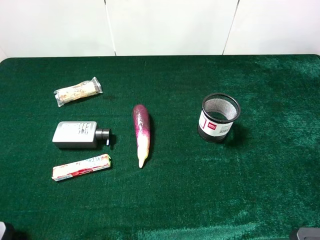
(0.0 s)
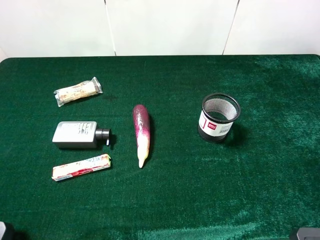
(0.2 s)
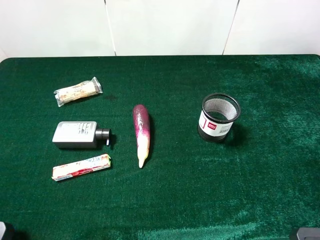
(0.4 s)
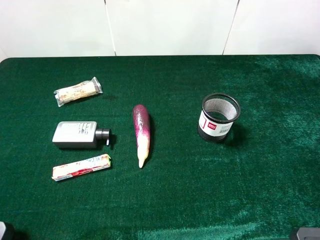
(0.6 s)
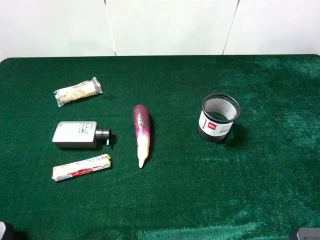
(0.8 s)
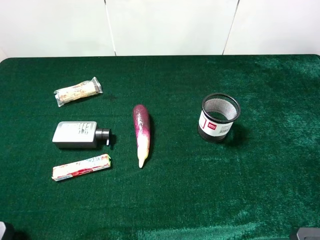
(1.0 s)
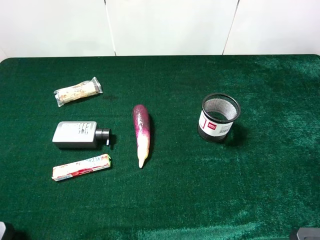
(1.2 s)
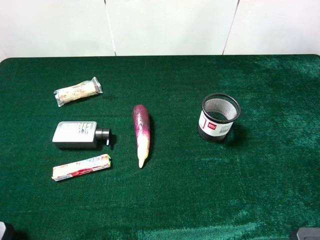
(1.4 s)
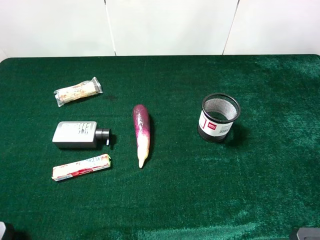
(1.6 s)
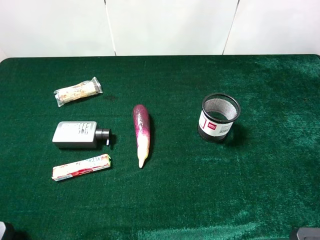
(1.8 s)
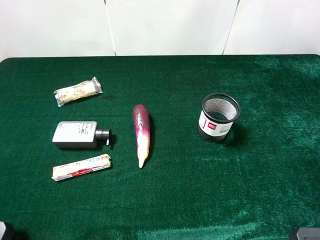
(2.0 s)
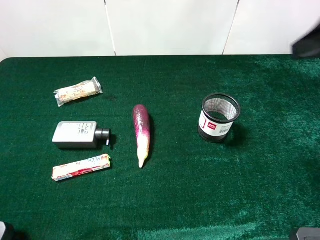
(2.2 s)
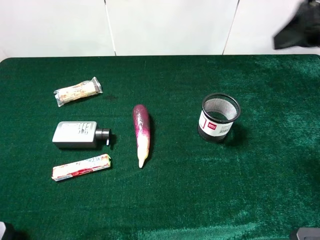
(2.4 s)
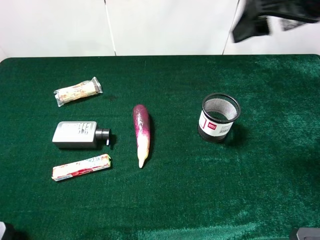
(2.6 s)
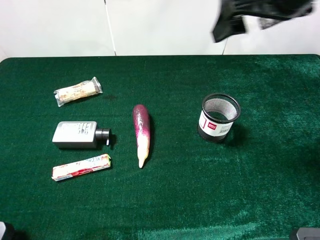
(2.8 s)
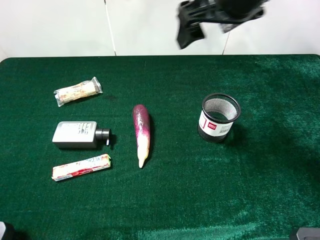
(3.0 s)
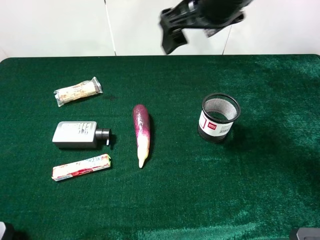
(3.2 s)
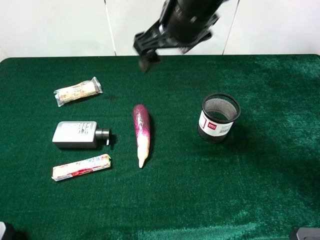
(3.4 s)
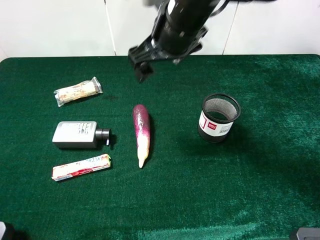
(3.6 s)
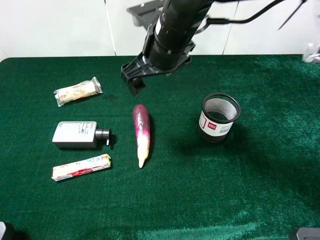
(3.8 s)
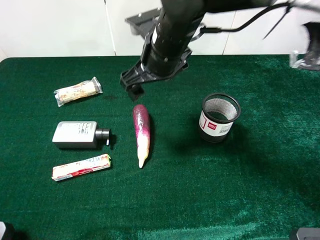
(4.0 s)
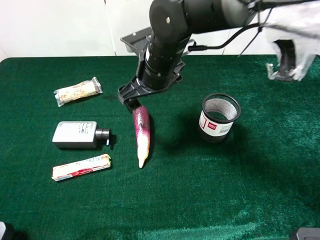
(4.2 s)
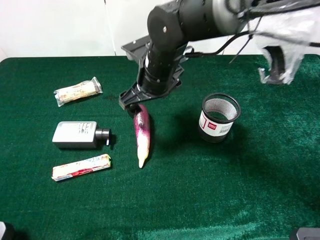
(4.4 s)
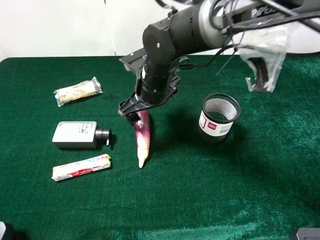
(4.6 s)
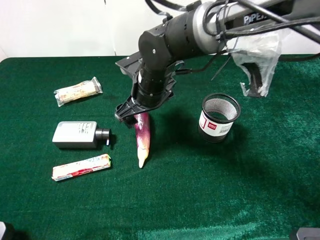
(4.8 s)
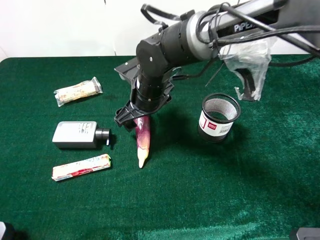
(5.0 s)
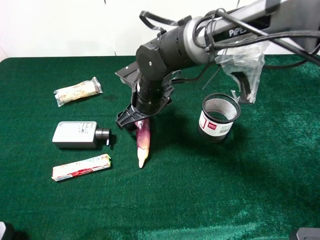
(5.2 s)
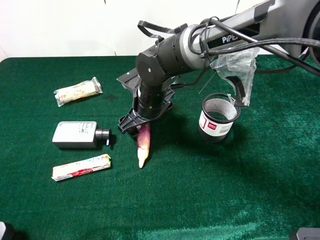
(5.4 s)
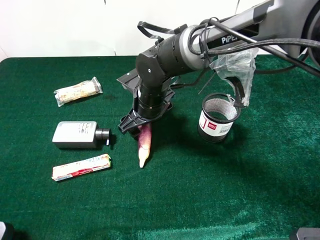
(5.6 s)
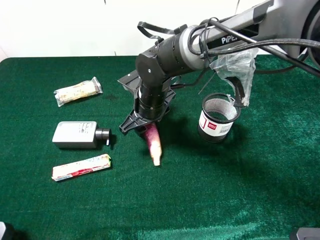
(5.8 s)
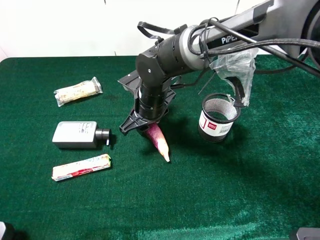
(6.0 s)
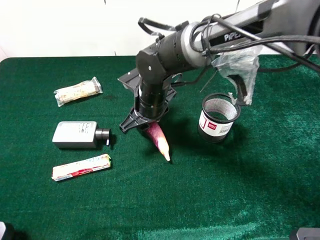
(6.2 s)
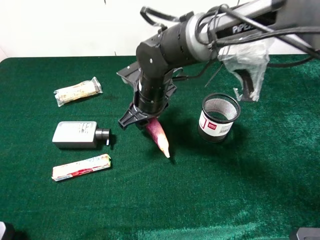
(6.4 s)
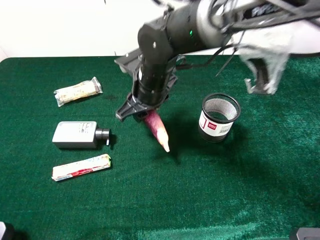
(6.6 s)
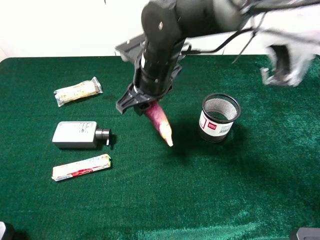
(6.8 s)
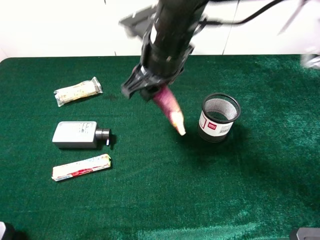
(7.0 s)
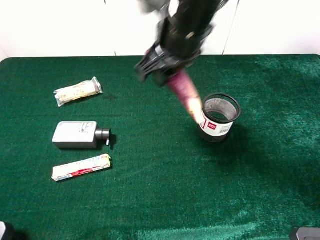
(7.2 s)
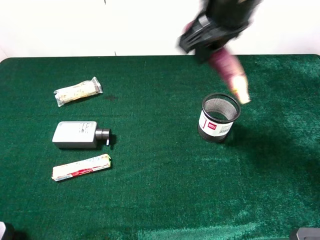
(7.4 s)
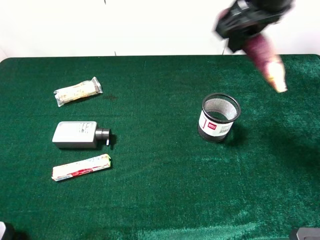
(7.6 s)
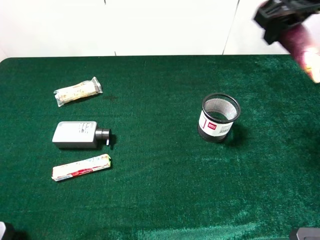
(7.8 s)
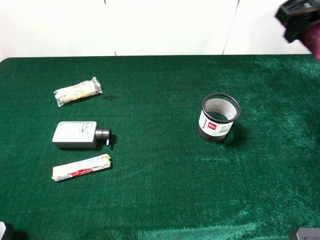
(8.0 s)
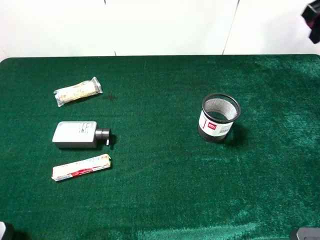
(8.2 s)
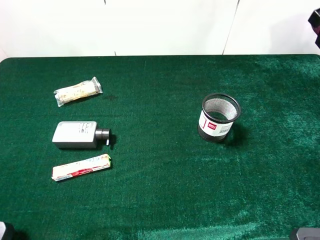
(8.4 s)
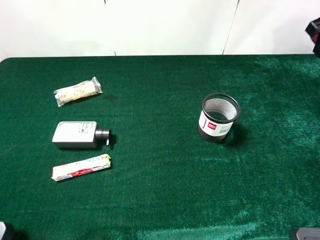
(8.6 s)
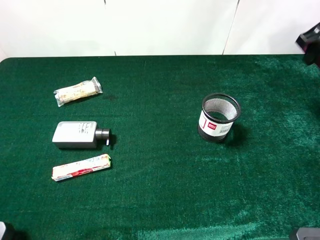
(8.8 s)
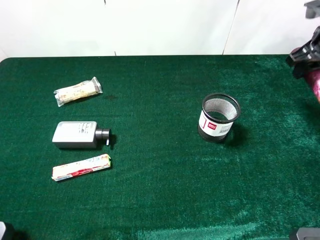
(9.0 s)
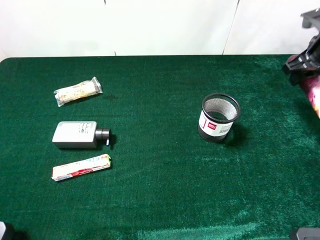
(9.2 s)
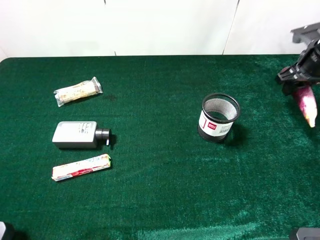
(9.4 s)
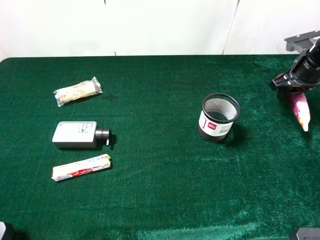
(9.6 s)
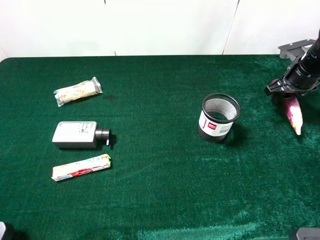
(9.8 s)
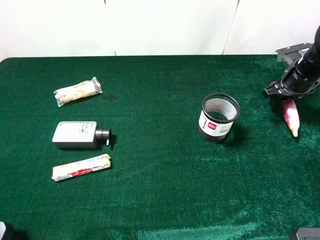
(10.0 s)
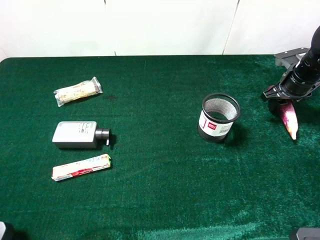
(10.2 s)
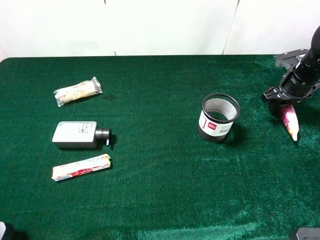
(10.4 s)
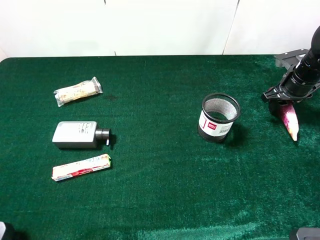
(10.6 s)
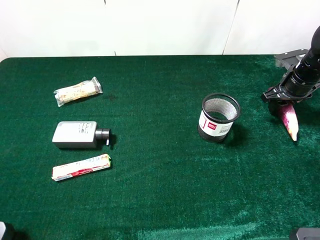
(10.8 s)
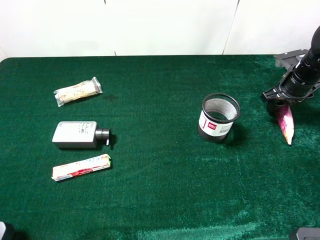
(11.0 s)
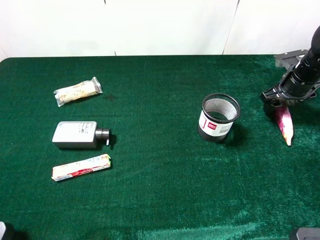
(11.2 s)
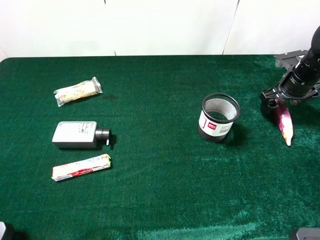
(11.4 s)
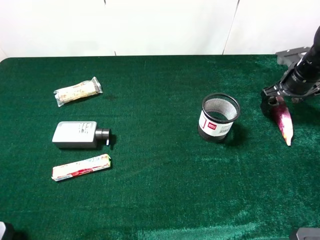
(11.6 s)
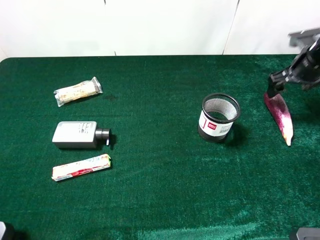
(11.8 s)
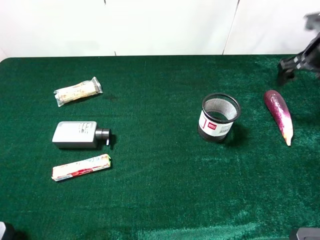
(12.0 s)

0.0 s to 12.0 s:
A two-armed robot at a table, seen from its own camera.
Task of the whole recording: the gripper move the object.
Step, 0.0 to 6.0 s: Grasp the eggplant with the right gripper.
Step, 6.2 to 11.4 s: Place the eggplant on the table with the right gripper.
1.6 to 3.0 s: The right gripper is displaced forward and to the left by approximately 30 cm.
3.0 to 4.4 s: The right gripper heads downward and to the left, covering roughly 20 cm.
4.4 to 6.0 s: The right gripper is displaced downward by roughly 5 cm, and closes.
6.0 to 7.6 s: The right gripper heads upward and to the right, covering approximately 30 cm.
7.6 to 9.0 s: The right gripper goes approximately 20 cm to the right and downward.
9.0 to 10.4 s: The right gripper travels downward by roughly 10 cm.
10.4 to 12.0 s: The right gripper heads upward, covering about 10 cm, and opens up.

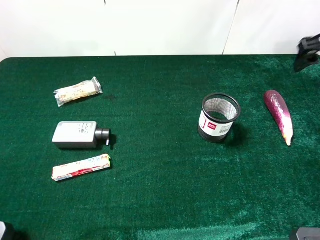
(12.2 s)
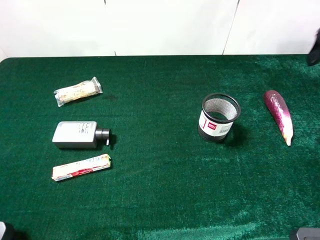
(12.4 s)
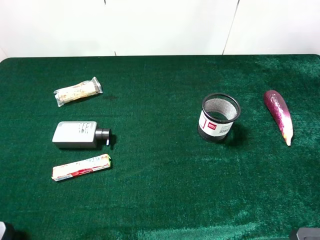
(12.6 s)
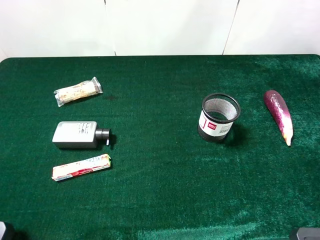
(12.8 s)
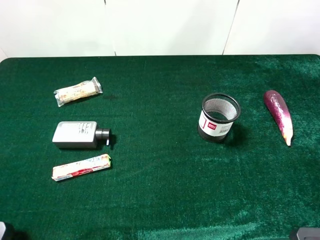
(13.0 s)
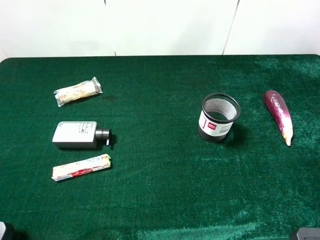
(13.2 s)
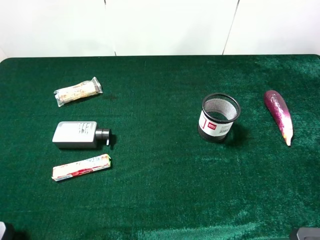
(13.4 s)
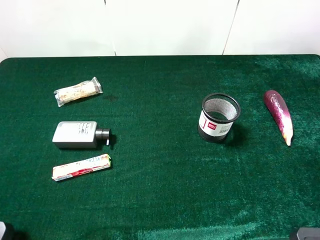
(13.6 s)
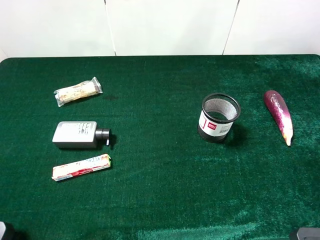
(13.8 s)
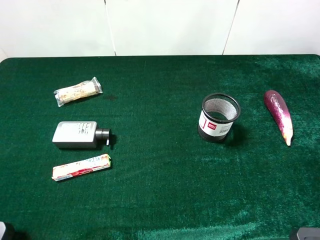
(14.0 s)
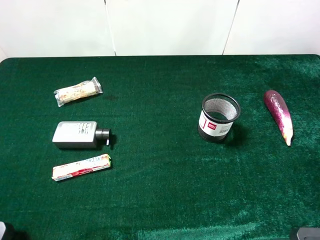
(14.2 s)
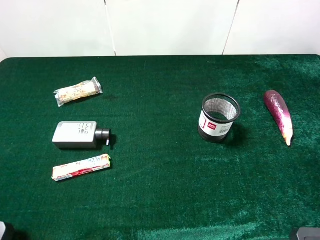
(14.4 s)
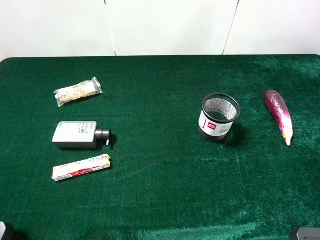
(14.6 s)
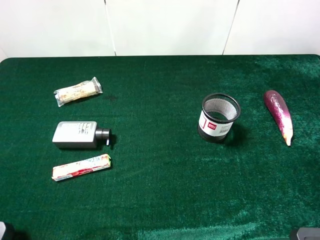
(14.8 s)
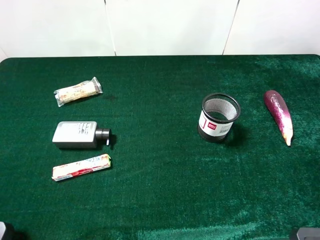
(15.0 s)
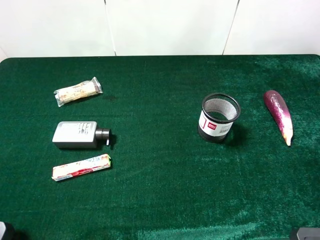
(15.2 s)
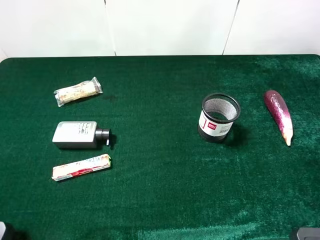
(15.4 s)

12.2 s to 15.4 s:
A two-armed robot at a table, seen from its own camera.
Task of the whole recording: the gripper move the object.
12.2 to 13.8 s: The right gripper heads backward, covering approximately 30 cm.
13.8 to 15.4 s: Both grippers stay about where they are.

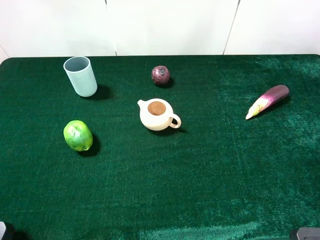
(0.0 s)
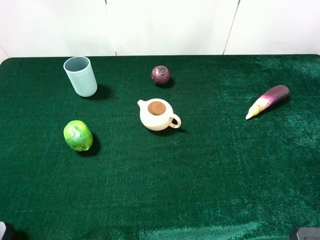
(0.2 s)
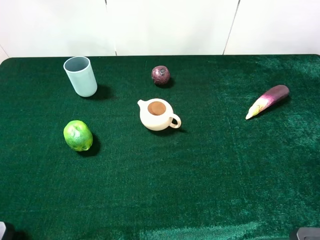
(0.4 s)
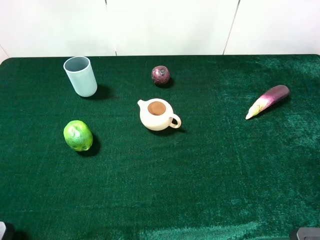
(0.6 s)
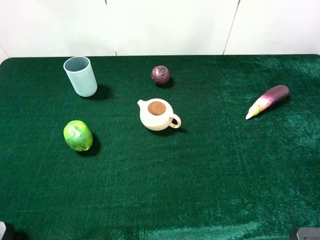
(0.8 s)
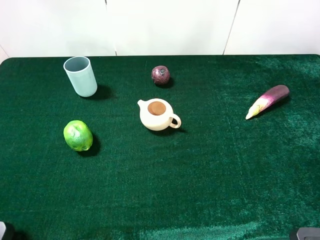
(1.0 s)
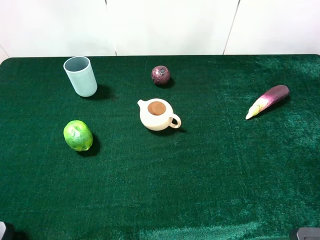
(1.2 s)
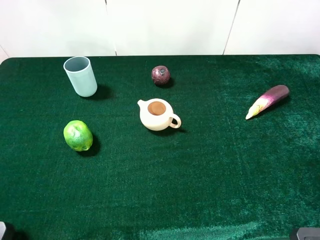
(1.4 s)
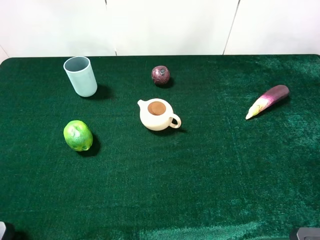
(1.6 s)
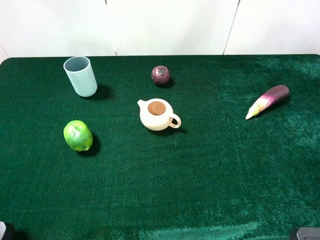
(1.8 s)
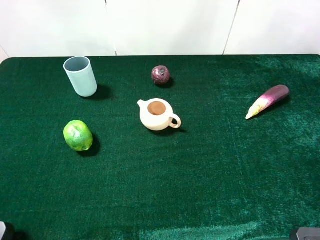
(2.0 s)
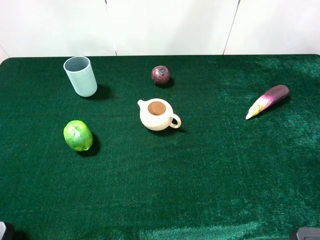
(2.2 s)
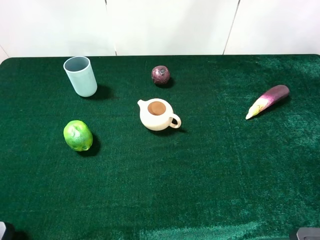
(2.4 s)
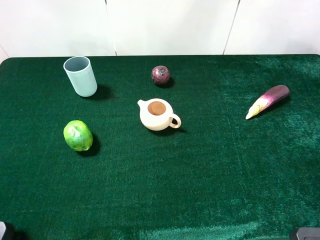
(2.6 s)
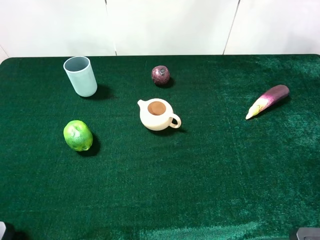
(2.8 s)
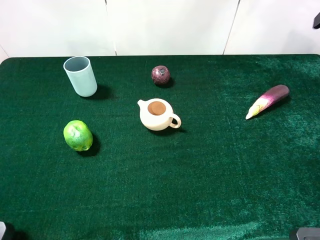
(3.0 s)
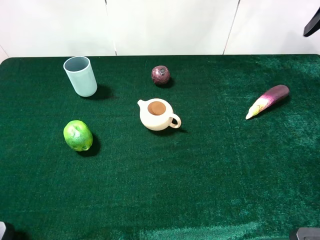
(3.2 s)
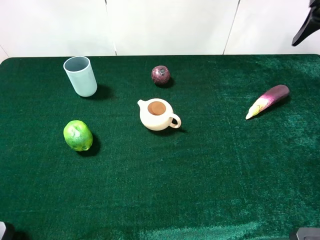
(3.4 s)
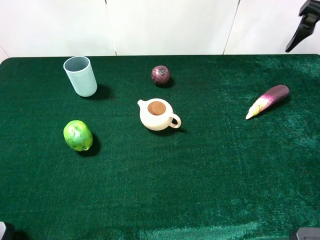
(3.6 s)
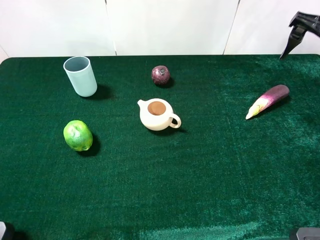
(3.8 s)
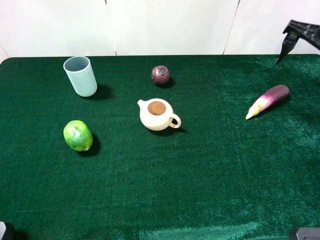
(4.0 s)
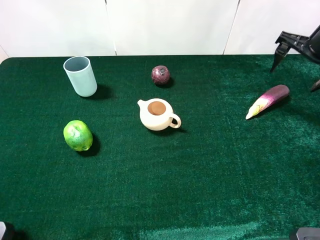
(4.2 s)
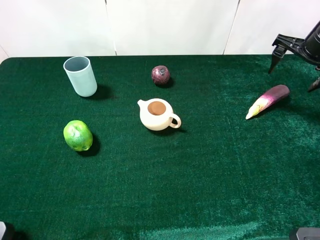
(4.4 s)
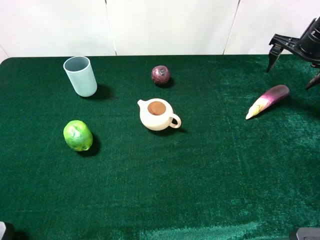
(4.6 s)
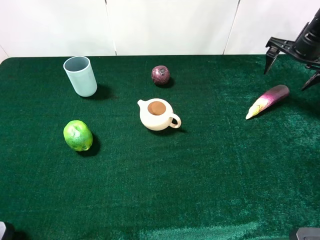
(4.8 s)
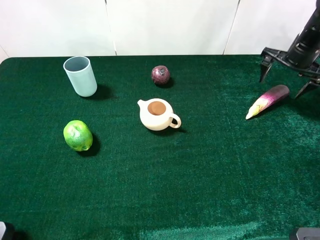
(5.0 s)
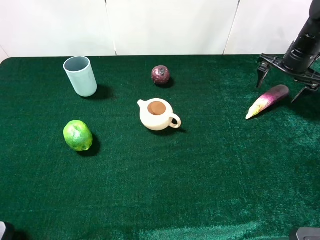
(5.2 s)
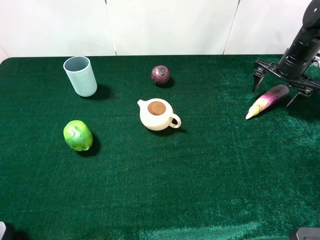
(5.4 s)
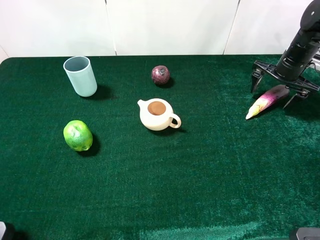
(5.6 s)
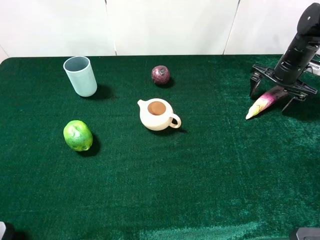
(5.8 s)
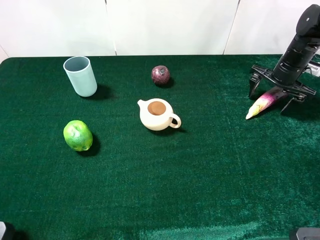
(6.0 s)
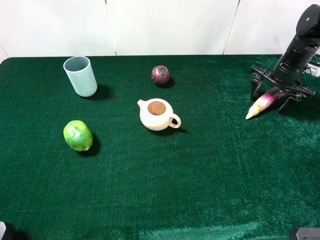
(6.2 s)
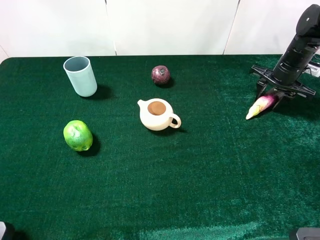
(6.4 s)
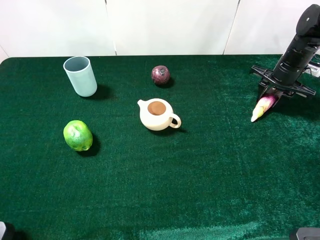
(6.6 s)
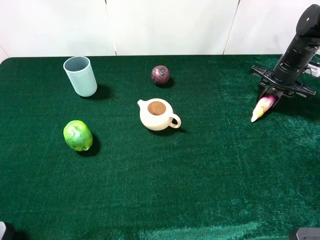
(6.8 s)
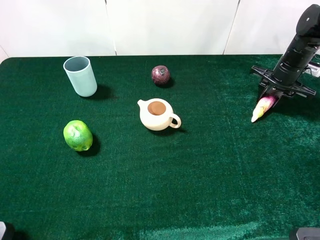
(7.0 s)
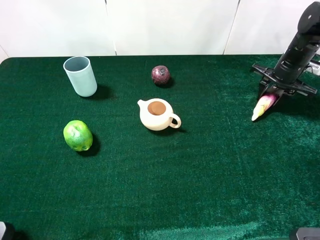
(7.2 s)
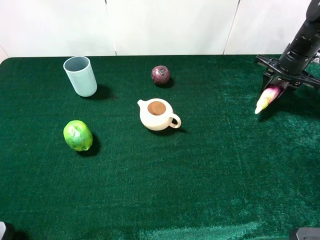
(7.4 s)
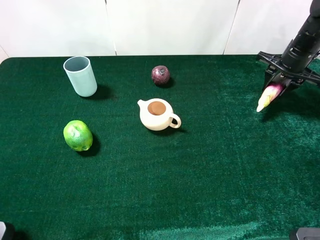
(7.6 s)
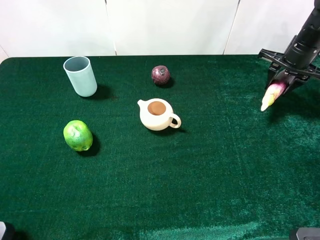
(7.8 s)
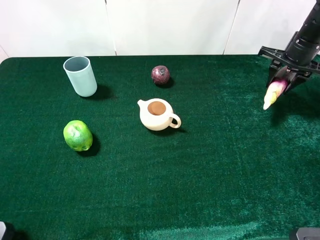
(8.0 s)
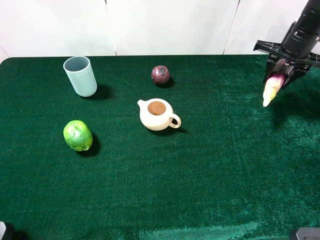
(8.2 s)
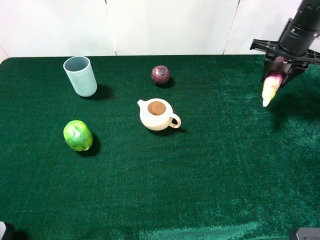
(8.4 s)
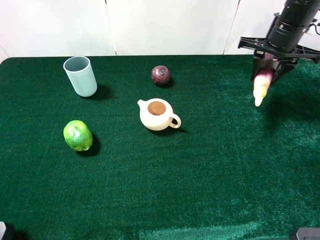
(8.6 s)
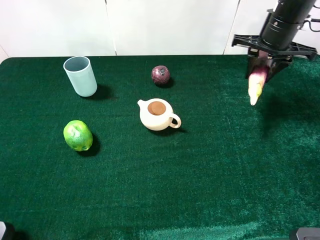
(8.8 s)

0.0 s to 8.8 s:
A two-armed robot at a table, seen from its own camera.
Task of the whole recording: the gripper move the object.
Step, 0.0 to 6.8 s: Grasp the eggplant with the right gripper.
0.0 to 1.4 s: Both grippers stay put.
3.0 to 4.4 s: The right gripper shifts roughly 20 cm downward and forward.
4.4 to 5.8 s: The right gripper goes approximately 10 cm downward.
5.8 to 7.4 s: The right gripper closes up.
7.4 to 8.8 s: The right gripper moves to the left and upward, about 15 cm.
